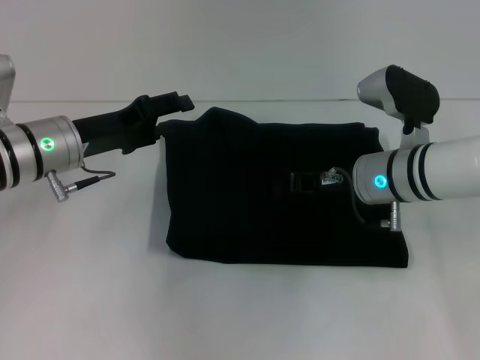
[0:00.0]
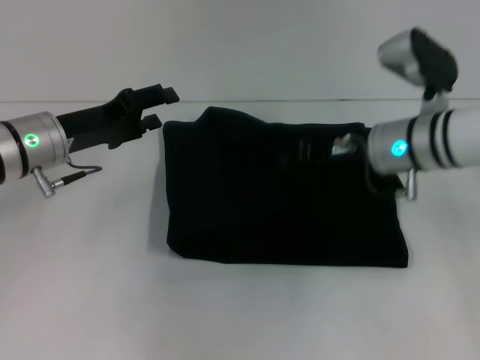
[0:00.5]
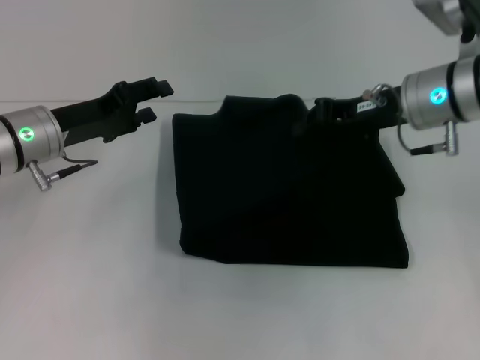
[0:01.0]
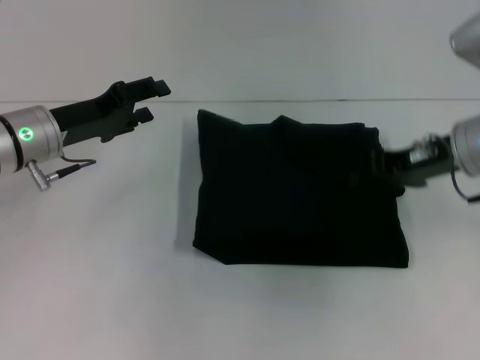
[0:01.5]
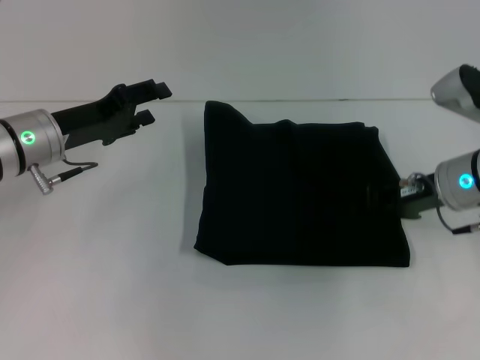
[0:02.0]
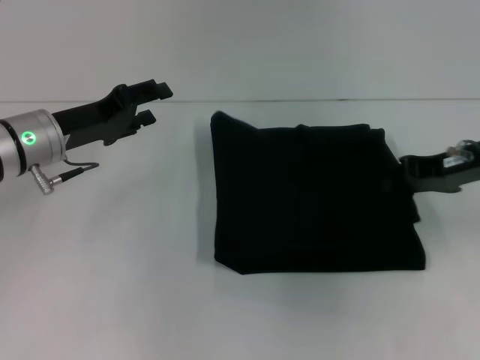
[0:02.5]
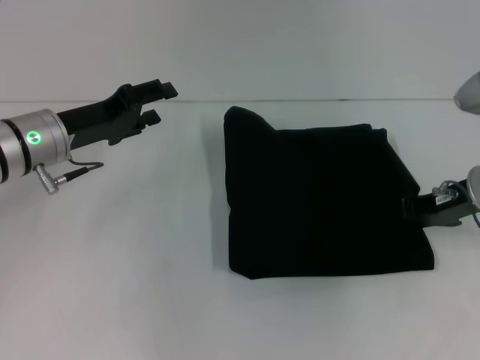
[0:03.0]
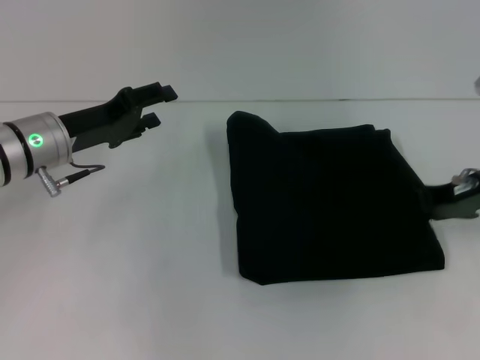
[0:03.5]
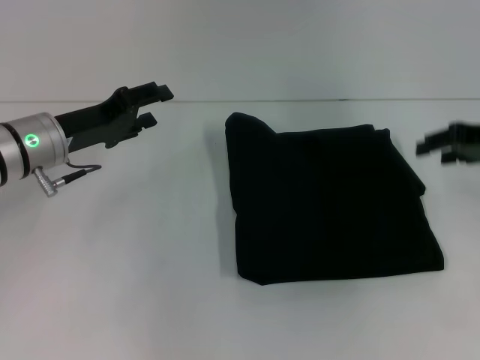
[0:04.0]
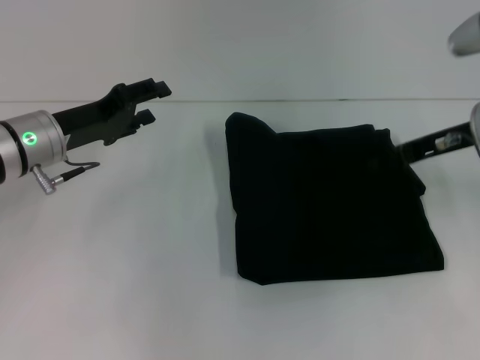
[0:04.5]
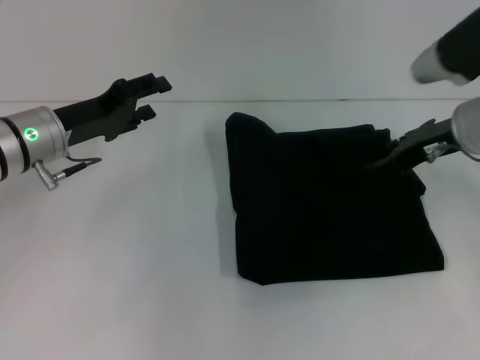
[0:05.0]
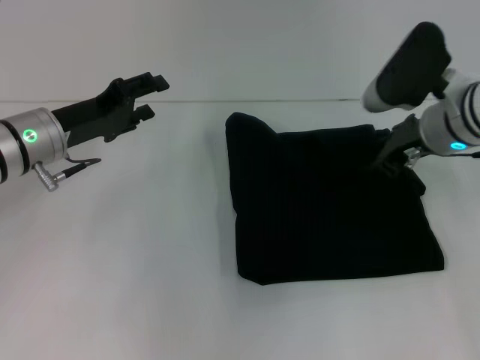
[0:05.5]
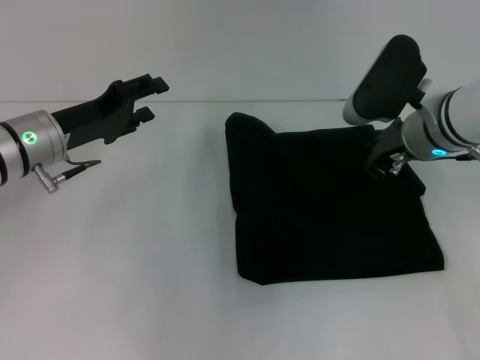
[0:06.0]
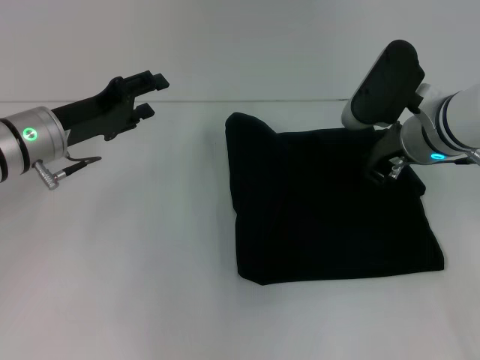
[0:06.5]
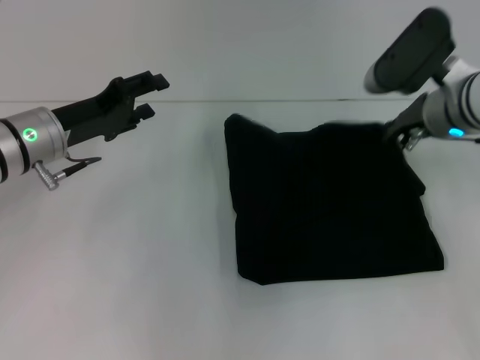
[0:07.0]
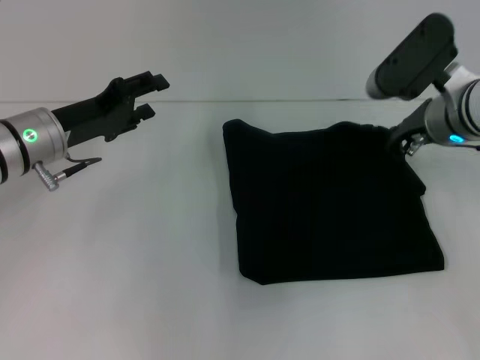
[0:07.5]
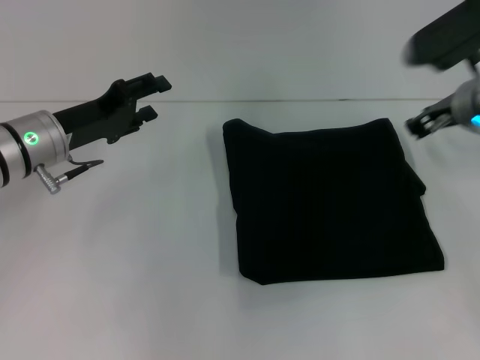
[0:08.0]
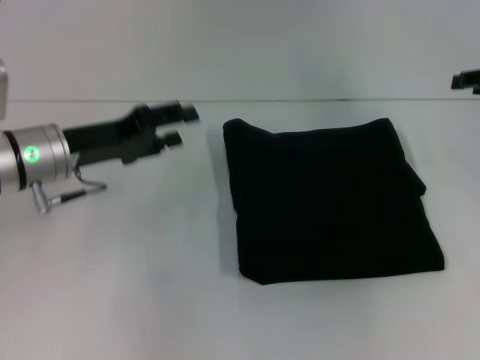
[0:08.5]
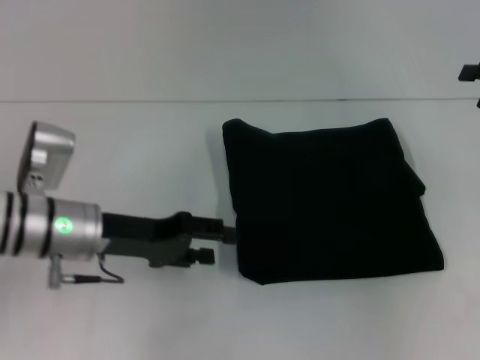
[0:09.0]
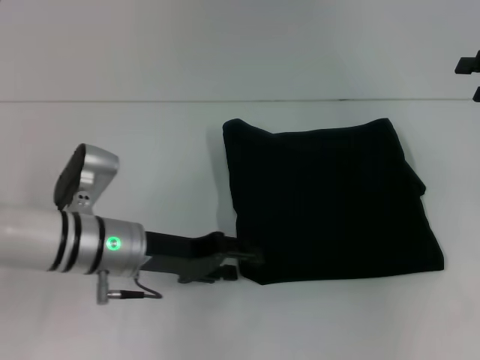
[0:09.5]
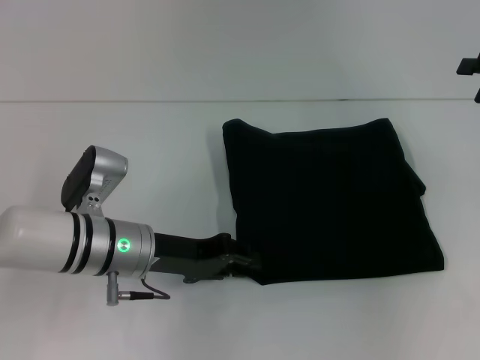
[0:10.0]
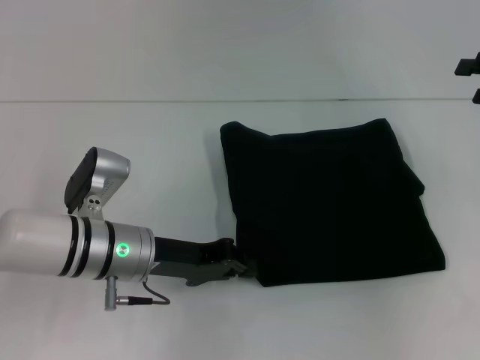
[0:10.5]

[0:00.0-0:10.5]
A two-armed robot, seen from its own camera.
Step, 0:00.0 to 0:09.5: Fold the clothes with your left hand.
0:00.0 to 0:02.0: The right gripper is displaced to the right by roughly 10 cm, and goes upward and returns, about 10 cm each way.
0:02.0 to 0:04.0: The right gripper is displaced to the right and upward by about 10 cm, and opens up.
0:04.0 to 0:06.5: The right gripper moves to the left, some 10 cm.
0:06.5 to 0:08.5: The right gripper moves to the right, some 15 cm.
0:08.5 to 0:10.5: The right gripper opens its fingers. Meanwhile the left gripper is displaced to the right and downward by roughly 10 cm, and closes.

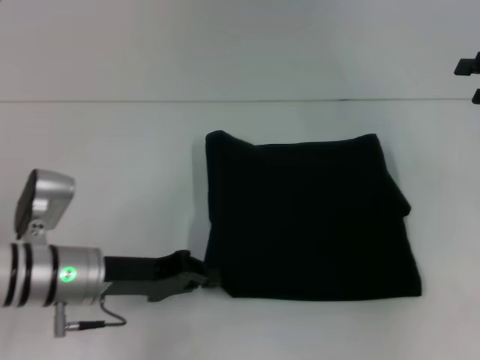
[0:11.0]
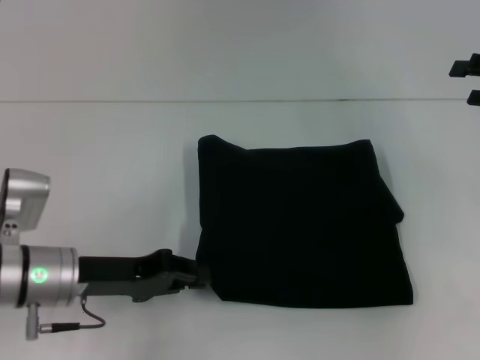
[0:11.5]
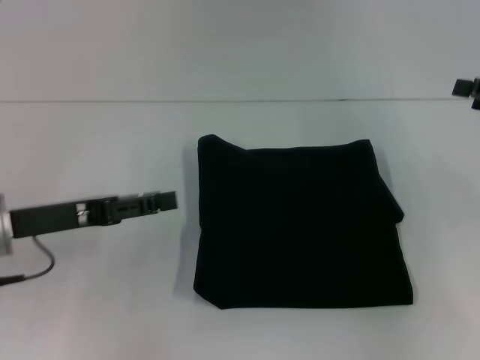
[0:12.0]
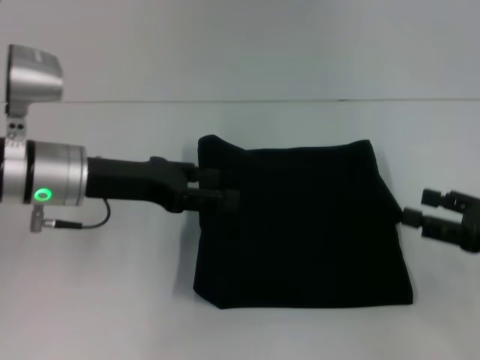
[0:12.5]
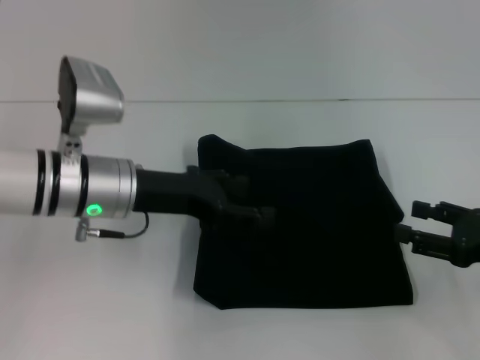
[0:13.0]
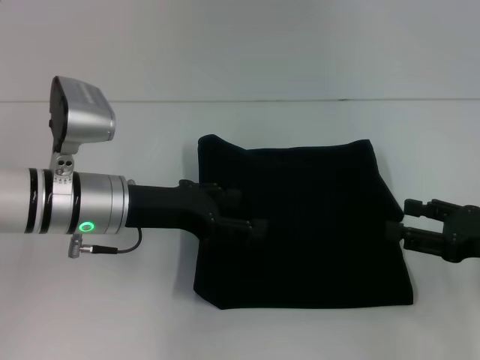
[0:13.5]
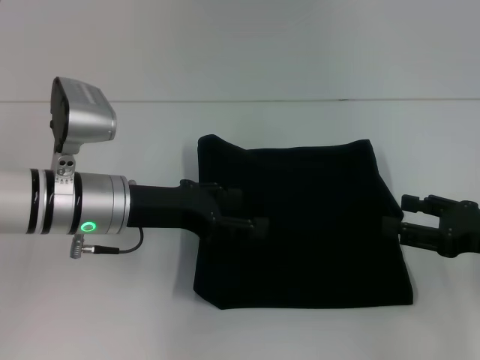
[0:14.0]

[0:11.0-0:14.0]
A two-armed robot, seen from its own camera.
0:11.0 to 0:12.5: The left gripper heads upward and forward, covering some 10 cm, and opens. Meanwhile the right gripper is displaced backward and downward by roughly 15 cm.
0:12.5 to 0:14.0: The grippers move only a little.

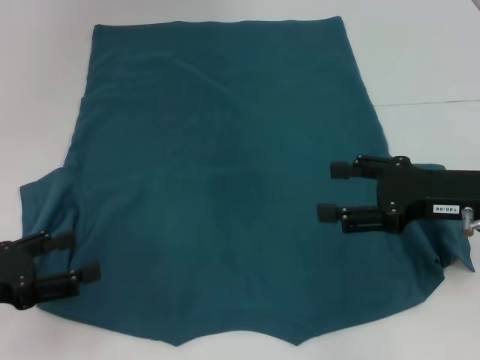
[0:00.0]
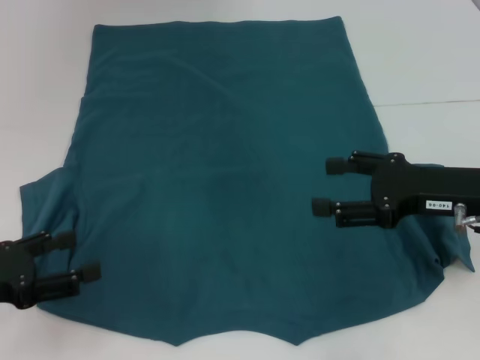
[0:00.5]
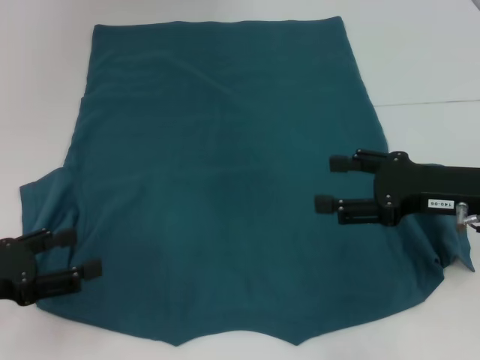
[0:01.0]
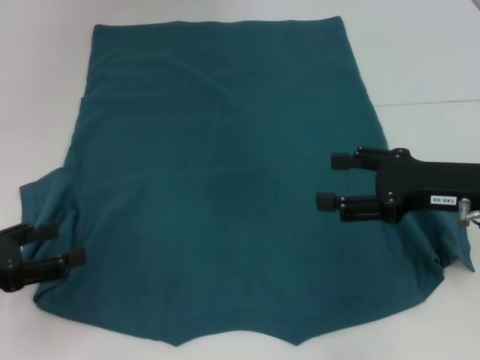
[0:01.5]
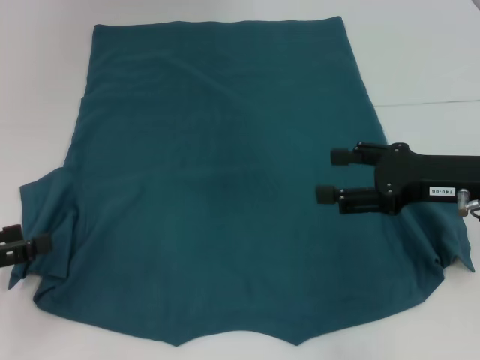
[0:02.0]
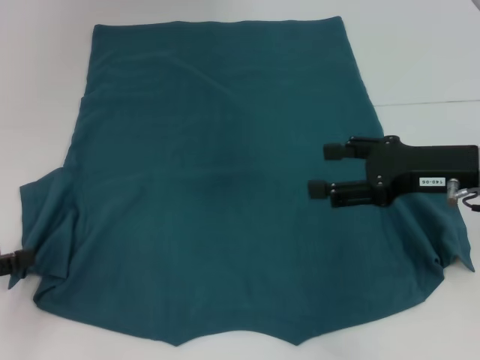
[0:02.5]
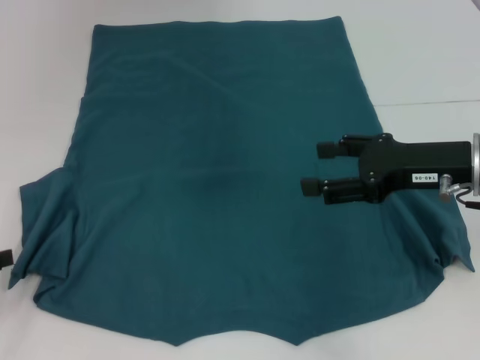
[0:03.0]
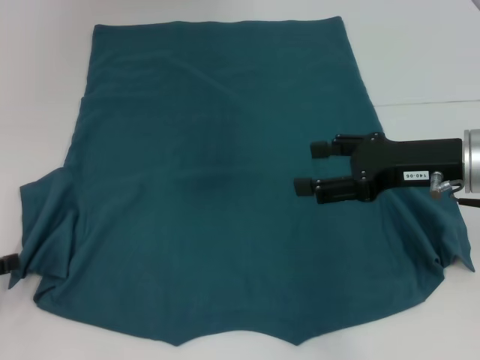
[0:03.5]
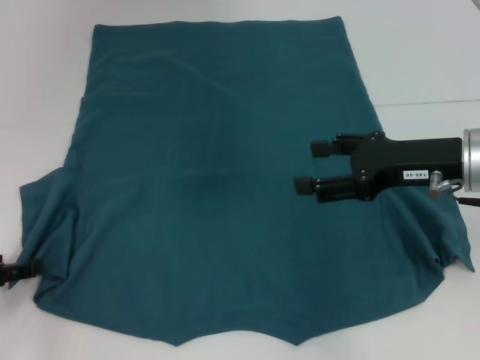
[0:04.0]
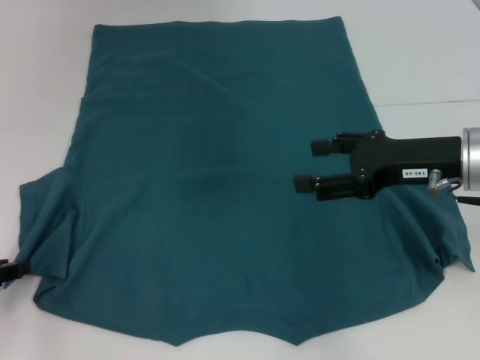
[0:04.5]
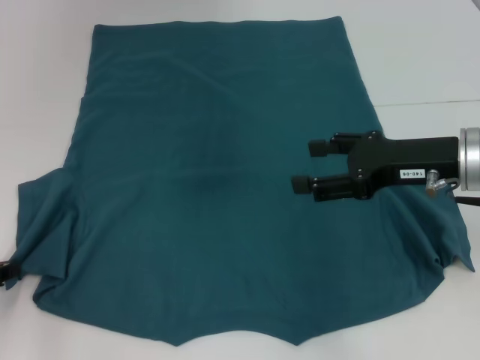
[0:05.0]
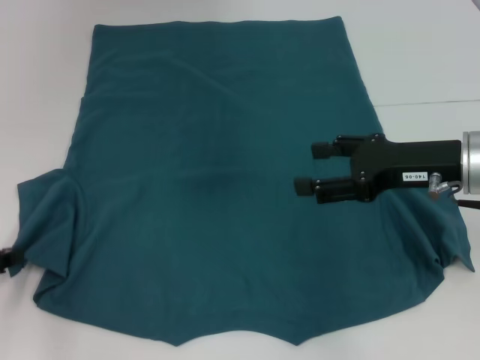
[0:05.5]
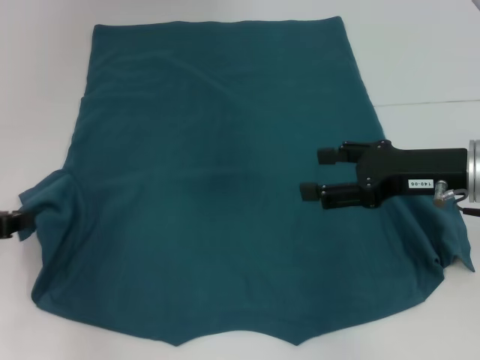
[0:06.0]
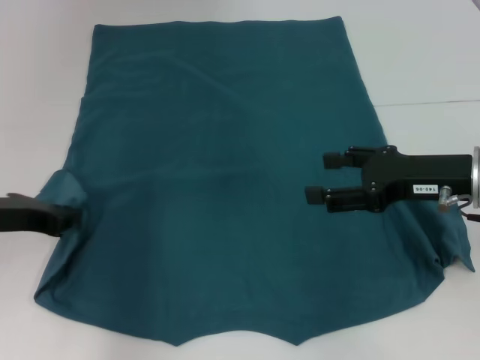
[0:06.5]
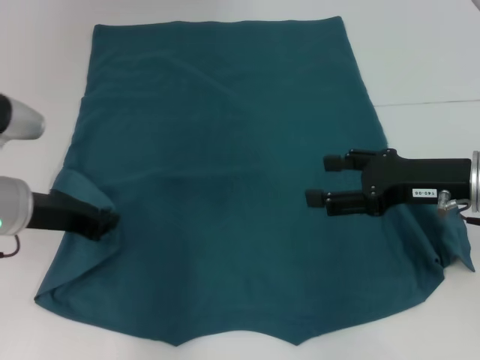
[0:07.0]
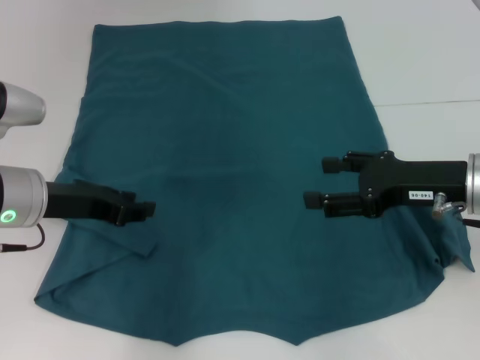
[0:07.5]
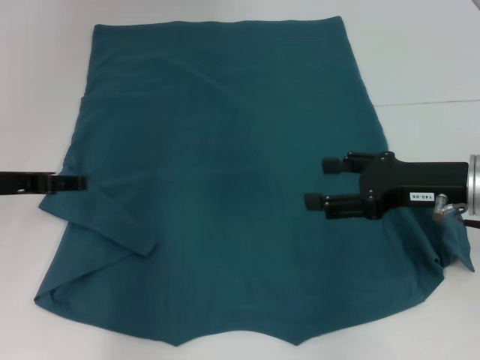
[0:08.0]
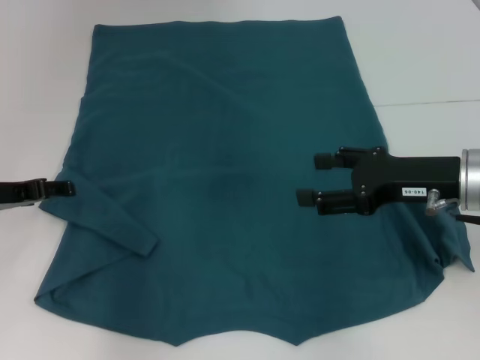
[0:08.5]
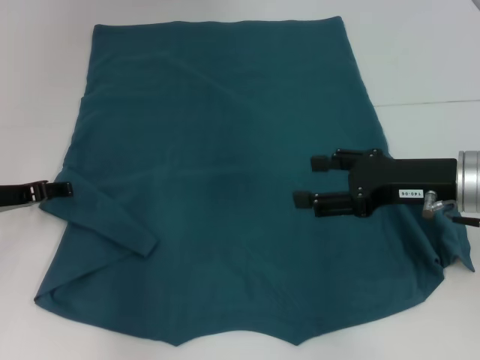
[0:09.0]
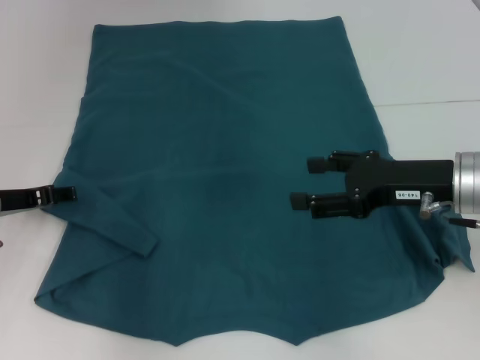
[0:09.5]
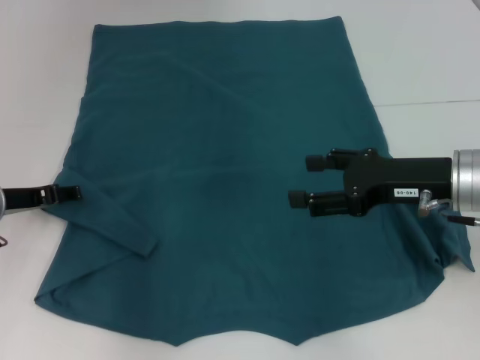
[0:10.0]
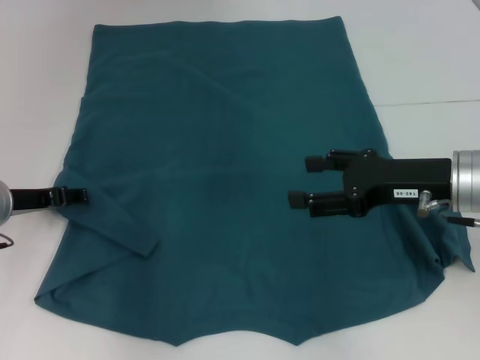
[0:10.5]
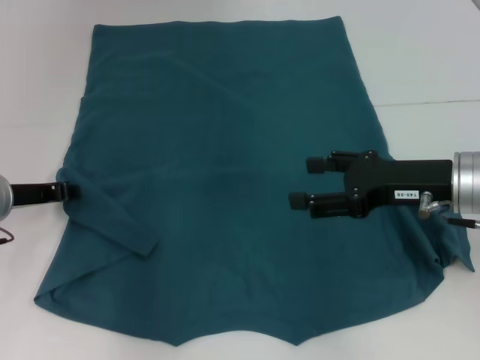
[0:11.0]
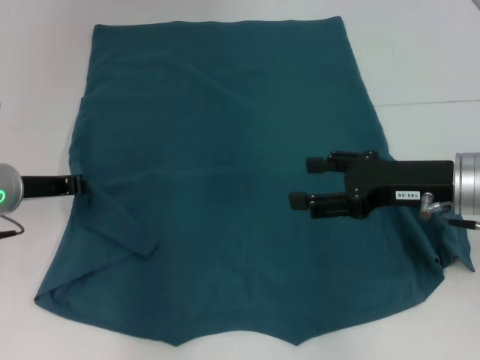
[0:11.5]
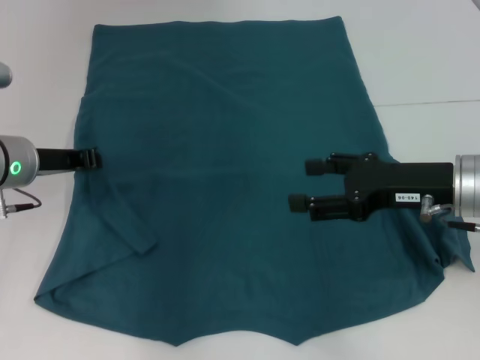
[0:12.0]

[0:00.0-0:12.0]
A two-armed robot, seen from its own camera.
0:00.0 to 0:02.0: The grippers move only a little.
0:04.0 to 0:06.0: The left gripper heads upward, covering roughly 5 cm, and closes its fingers.
0:06.0 to 0:08.0: The left gripper opens.
0:08.0 to 0:10.0: The left gripper is displaced downward by some 5 cm.
0:10.0 to 0:12.0: The left gripper shifts by roughly 5 cm, and closes.
